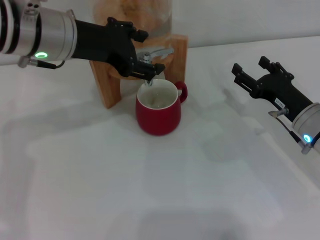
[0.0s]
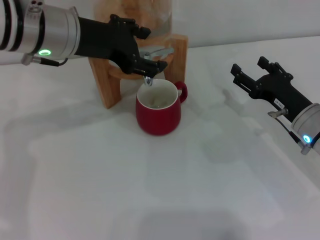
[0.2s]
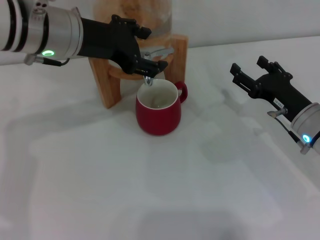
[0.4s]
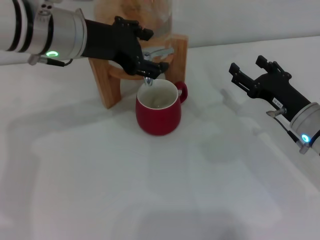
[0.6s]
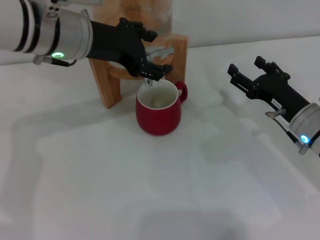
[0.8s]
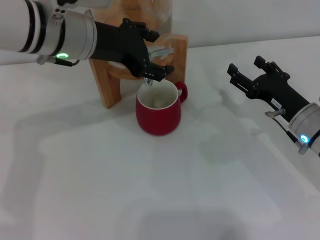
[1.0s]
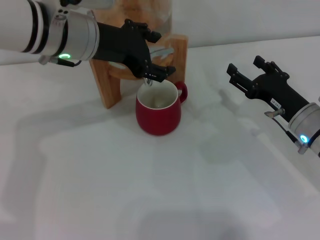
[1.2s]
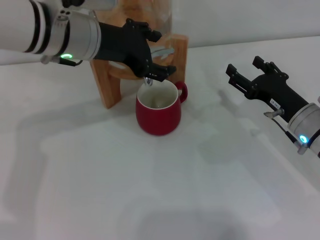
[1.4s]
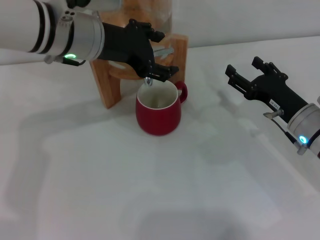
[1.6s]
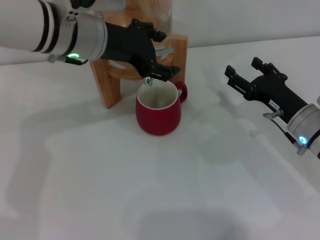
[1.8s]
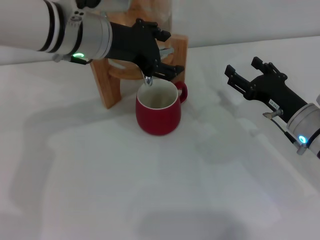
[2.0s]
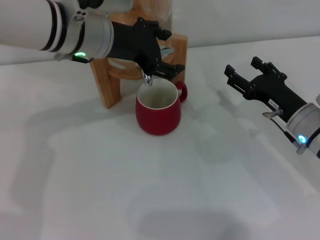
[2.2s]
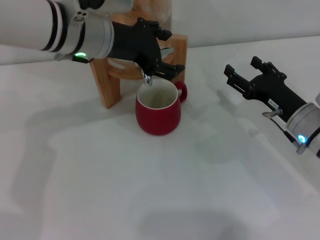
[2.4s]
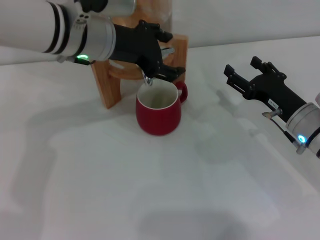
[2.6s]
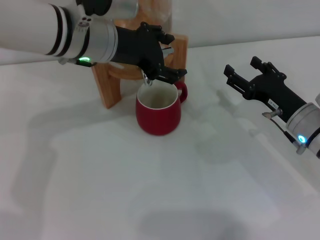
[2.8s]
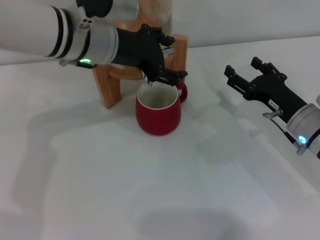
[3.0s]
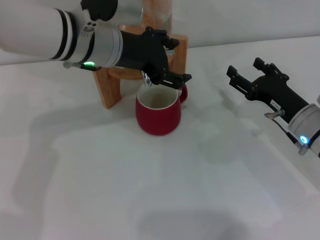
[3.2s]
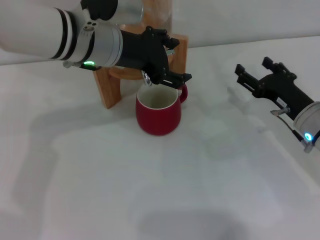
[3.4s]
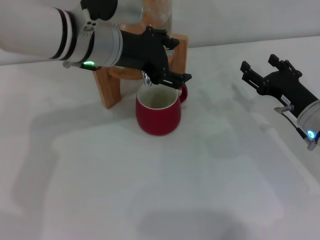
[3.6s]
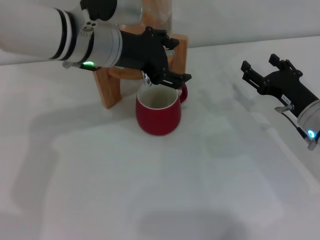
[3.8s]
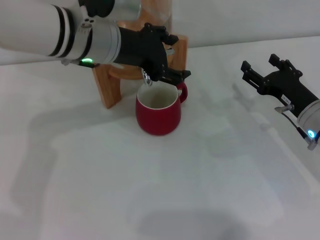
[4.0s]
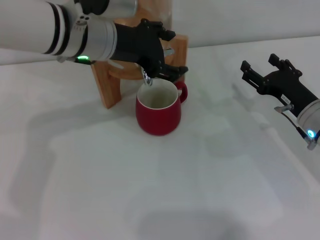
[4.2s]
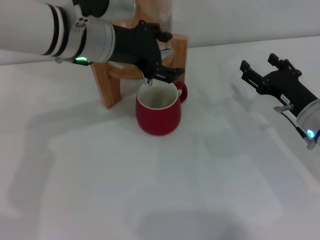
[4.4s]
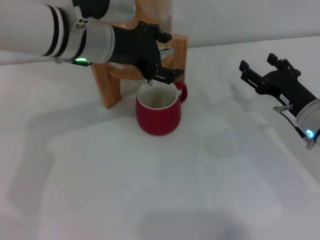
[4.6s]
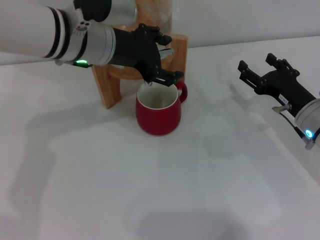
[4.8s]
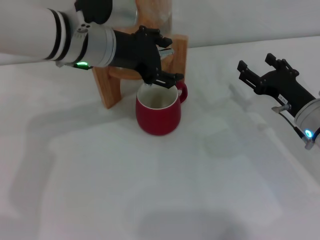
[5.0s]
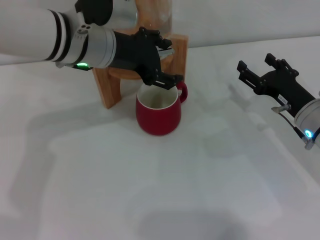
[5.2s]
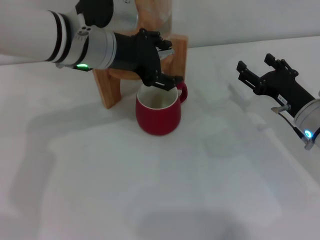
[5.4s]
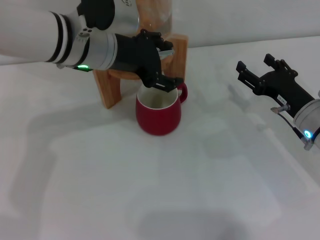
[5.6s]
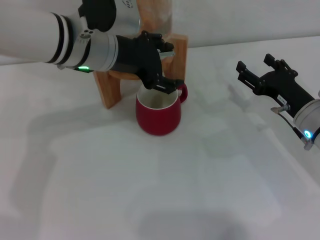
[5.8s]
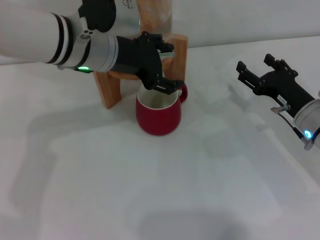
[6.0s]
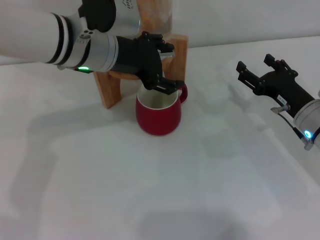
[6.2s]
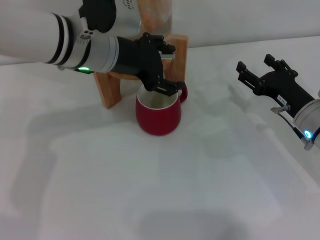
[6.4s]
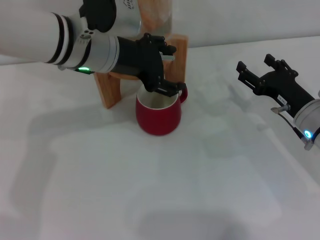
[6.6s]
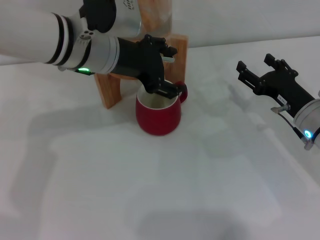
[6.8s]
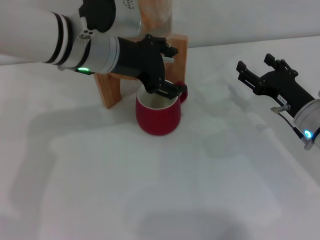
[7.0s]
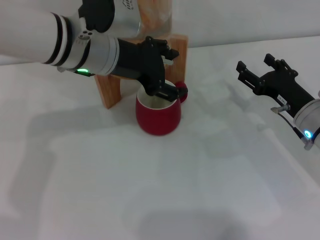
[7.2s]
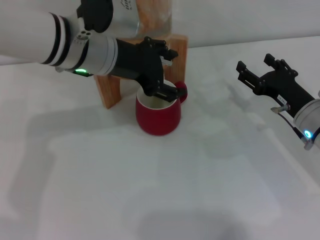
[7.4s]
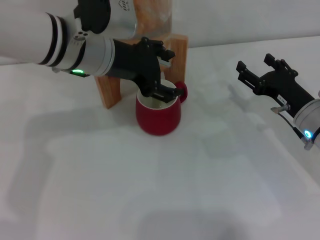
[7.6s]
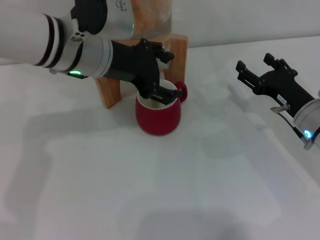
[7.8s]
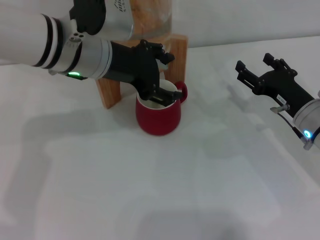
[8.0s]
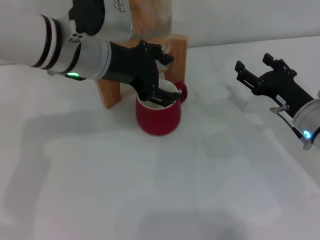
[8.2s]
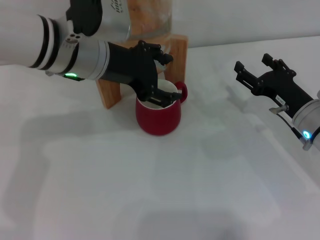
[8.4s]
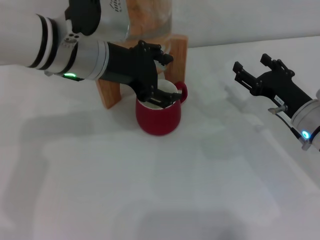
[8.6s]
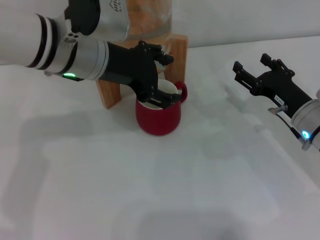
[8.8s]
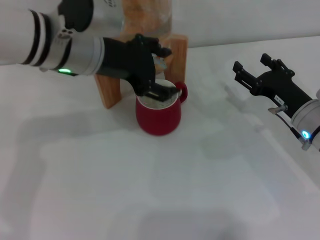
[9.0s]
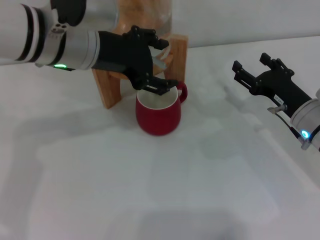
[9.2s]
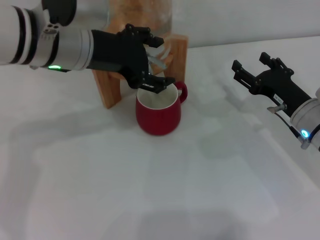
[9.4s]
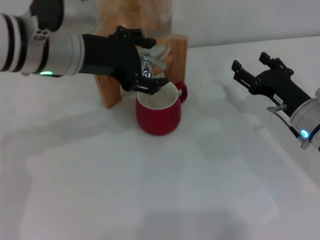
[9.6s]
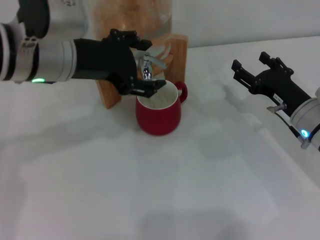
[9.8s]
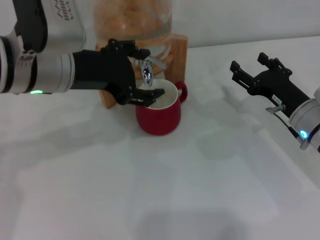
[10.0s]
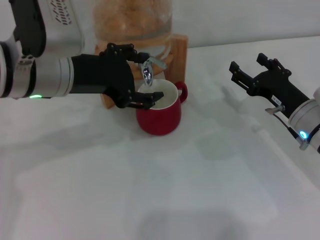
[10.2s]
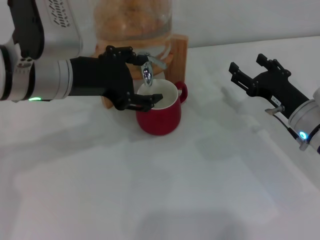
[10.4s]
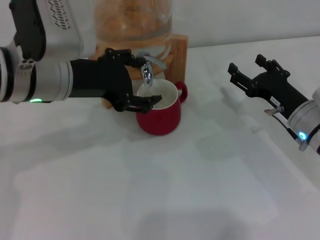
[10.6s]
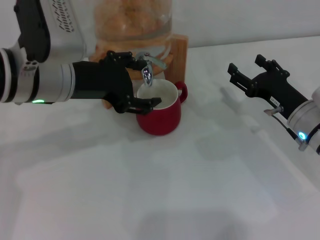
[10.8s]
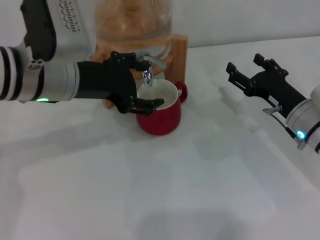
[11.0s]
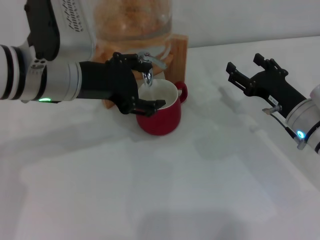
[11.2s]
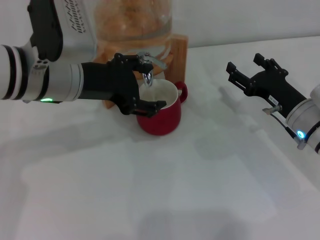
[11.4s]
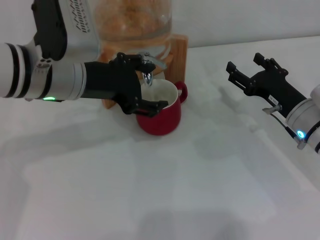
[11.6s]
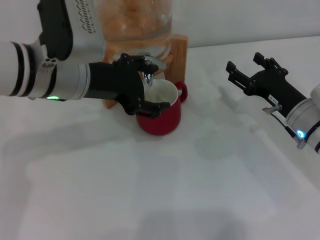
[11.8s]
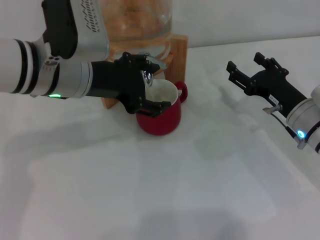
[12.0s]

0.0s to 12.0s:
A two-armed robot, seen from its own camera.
Task of the whole recording: the right gripper pick up the red cup and place it horizontally under the faucet, the left gripper turn on the faucet to fill the cup, and then turn off the faucet.
Step, 0.0s to 9.8s: Open the dispenser valve and fill the cup with water with the left gripper.
0.0s to 4.4s: The grippers make only small movements.
4.4s to 6.0s: The two grippers keep their place.
6.0s to 7.6s: Both grippers stay about where they are.
7.6s to 9.0s: There are only small adjustments of the grippers.
9.0s to 10.4s: The left gripper moves approximately 5 cm.
10.4s to 12.0s: The grippers stay close to where they were, moving slightly.

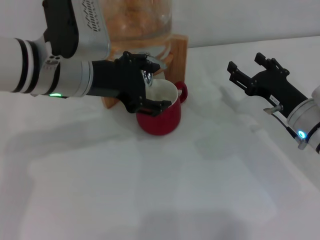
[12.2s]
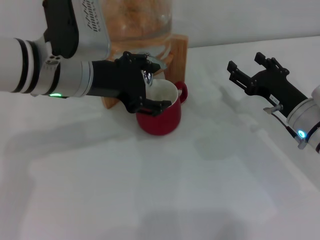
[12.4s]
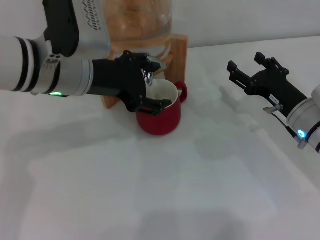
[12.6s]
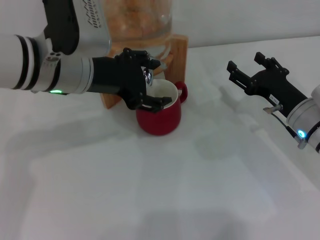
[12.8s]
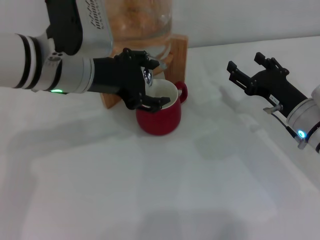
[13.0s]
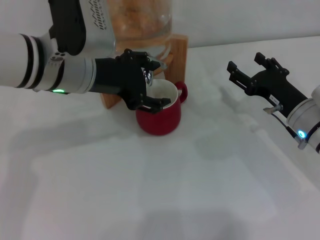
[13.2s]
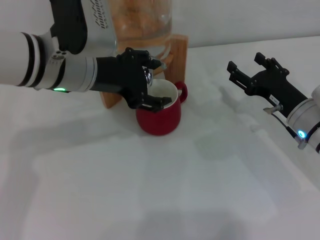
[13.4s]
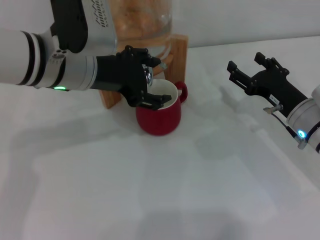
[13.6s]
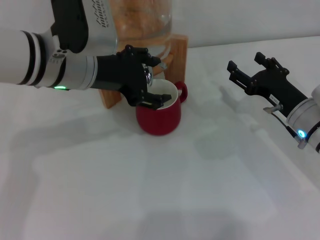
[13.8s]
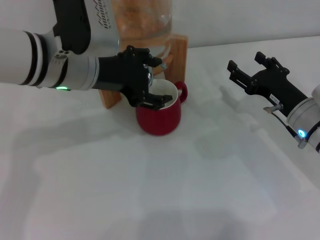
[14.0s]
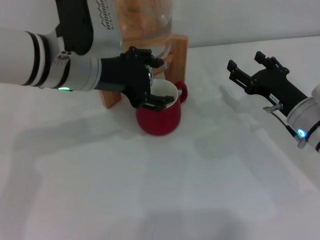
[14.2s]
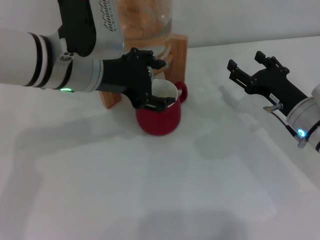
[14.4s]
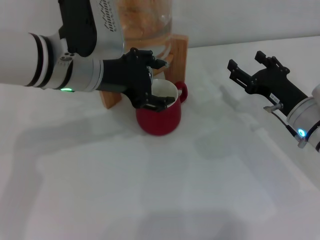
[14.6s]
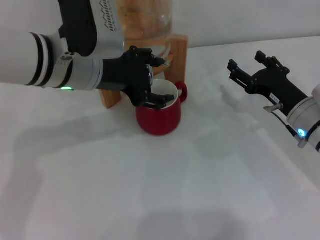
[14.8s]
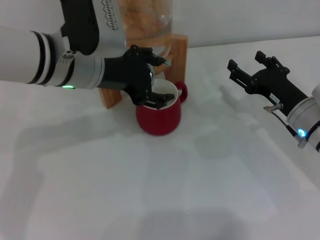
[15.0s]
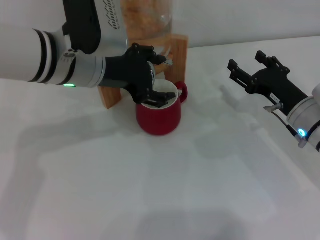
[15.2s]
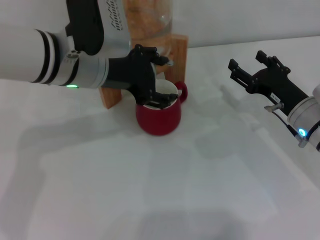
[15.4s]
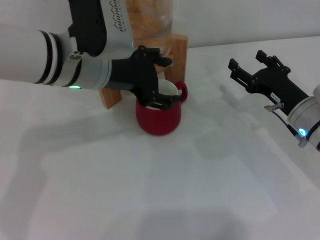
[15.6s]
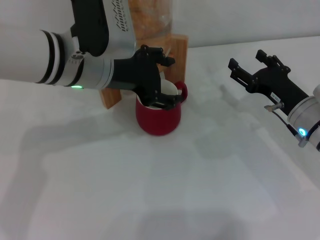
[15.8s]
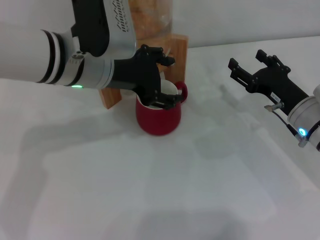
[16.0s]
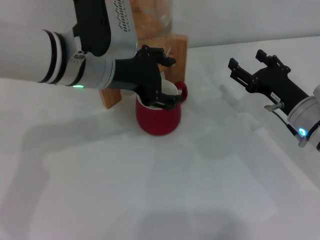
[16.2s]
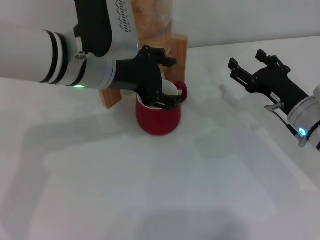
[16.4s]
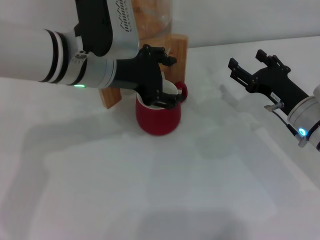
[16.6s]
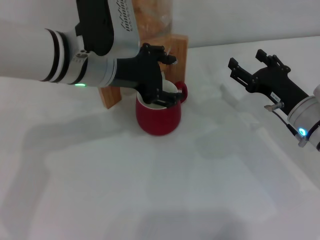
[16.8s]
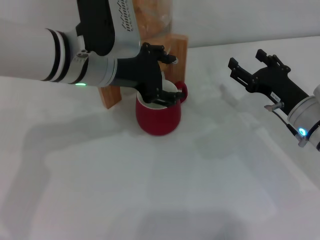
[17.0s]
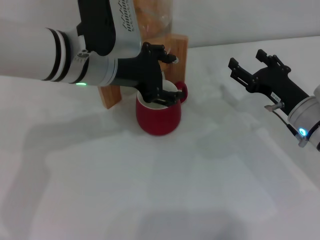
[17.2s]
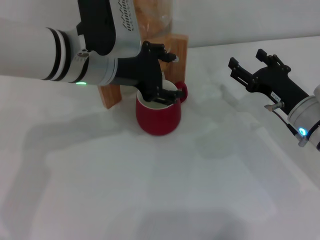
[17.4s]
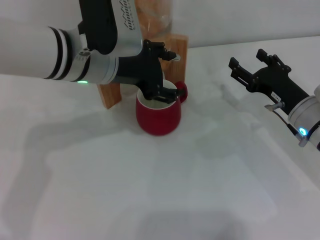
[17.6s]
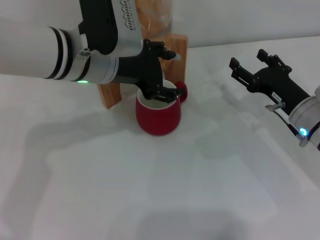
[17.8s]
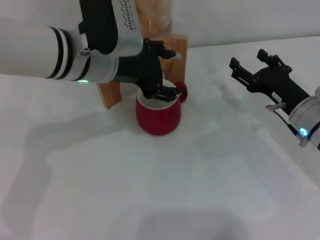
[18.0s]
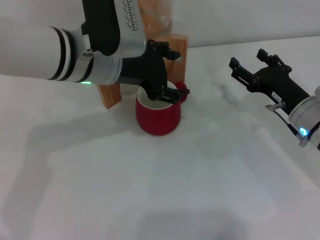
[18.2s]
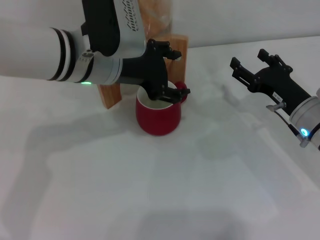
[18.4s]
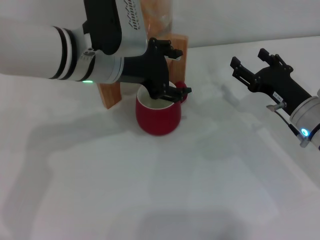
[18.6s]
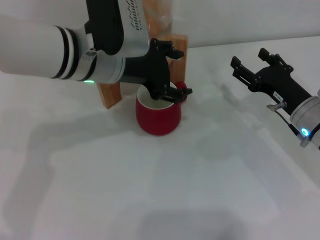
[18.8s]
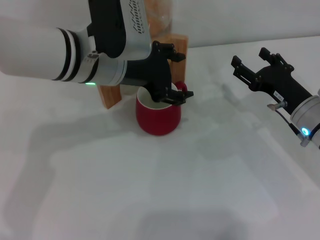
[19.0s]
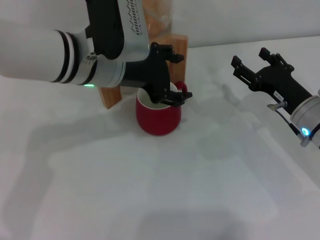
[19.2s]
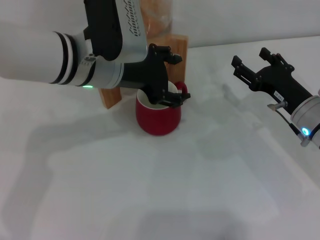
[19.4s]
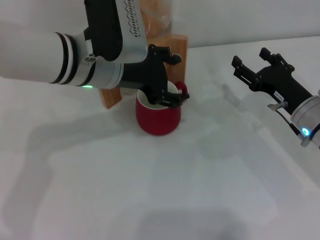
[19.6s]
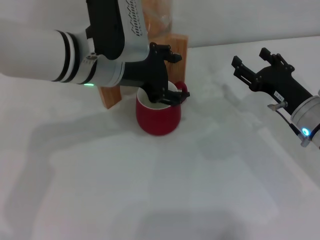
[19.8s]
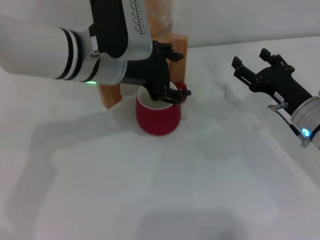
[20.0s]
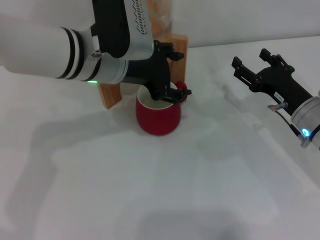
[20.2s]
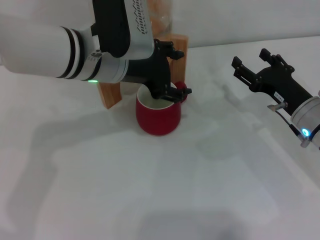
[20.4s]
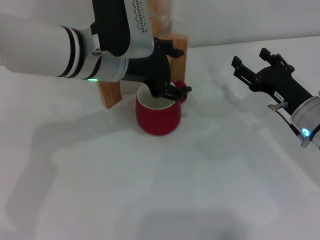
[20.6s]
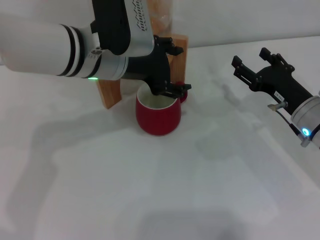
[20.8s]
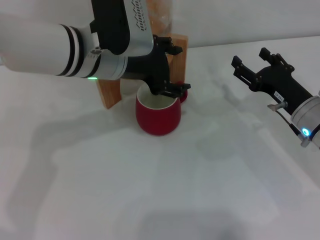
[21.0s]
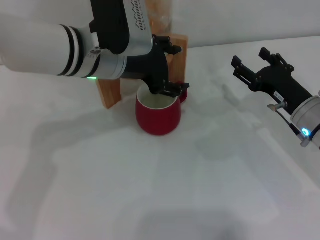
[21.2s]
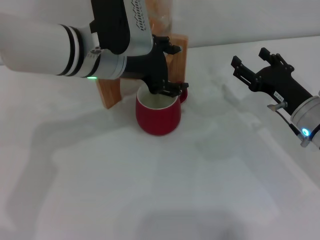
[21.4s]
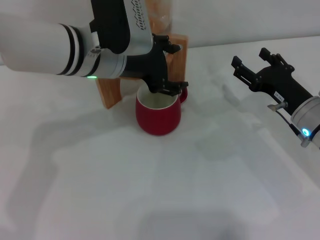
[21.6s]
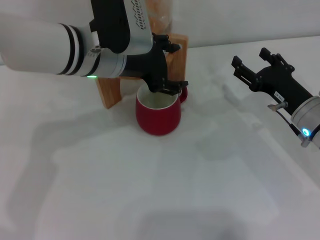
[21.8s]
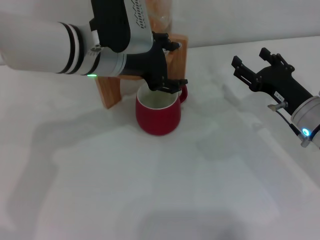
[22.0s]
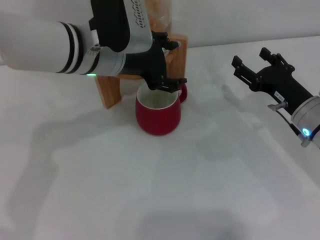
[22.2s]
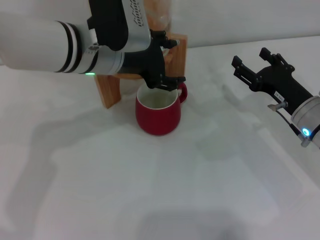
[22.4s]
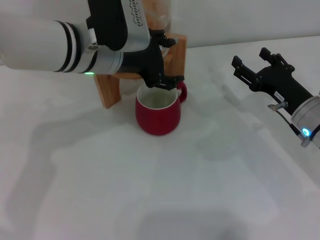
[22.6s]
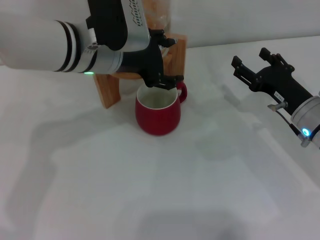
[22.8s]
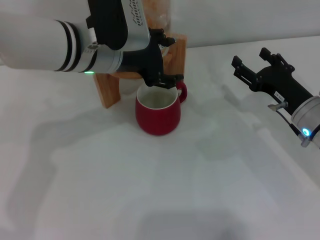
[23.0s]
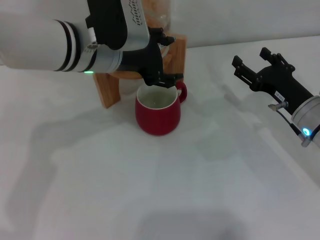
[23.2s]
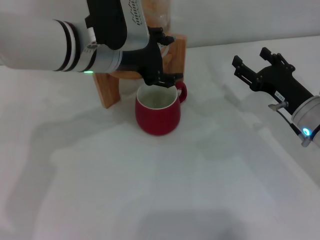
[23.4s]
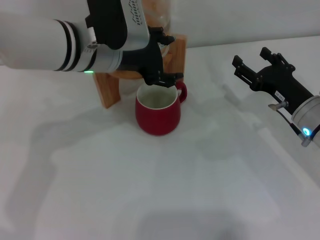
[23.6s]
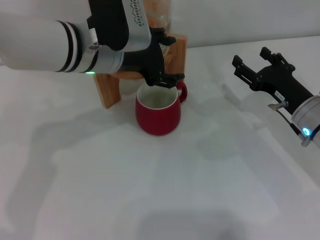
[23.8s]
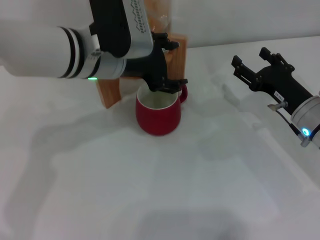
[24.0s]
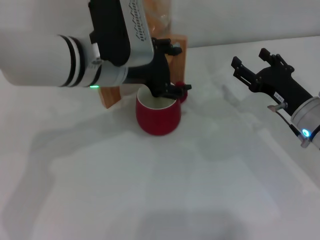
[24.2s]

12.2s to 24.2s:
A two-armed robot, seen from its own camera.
Task of the whole recording: the right gripper pick up the red cup and place it horizontally under the faucet, the left gripper turn on the faucet to fill the cup, and then turn off the faucet.
Step, 12.2s to 24.2s: Close the dispenser valve with the left gripper.
12.2s to 13.8s: Both grippers stay put.
13.8s to 15.2s: Both grippers stay put.
15.2s to 16.6s: Both grippers stay put.
16.6s to 19.8s: The two grippers keep their place.
19.8s to 21.2s: Both grippers stay about where they are.
21.2s to 22.6s: Neither gripper changes place.
22.6s to 24.2s: The grippers stay close to where they were, moving slightly.
